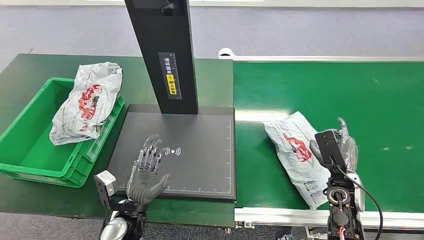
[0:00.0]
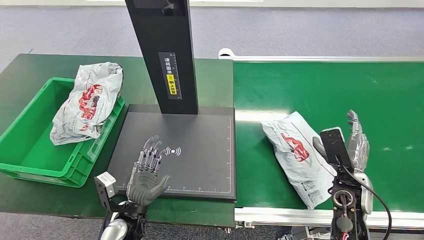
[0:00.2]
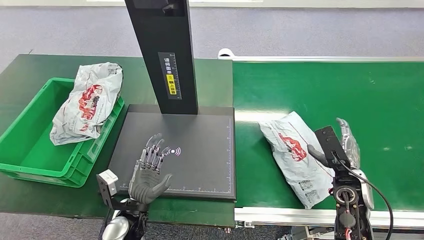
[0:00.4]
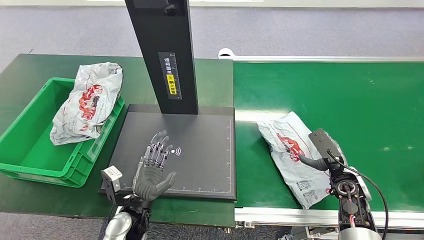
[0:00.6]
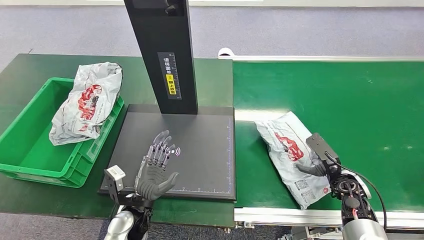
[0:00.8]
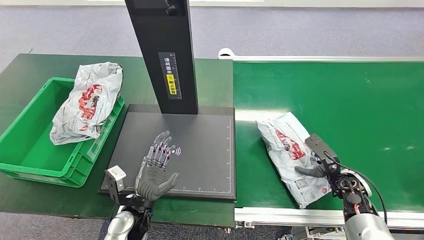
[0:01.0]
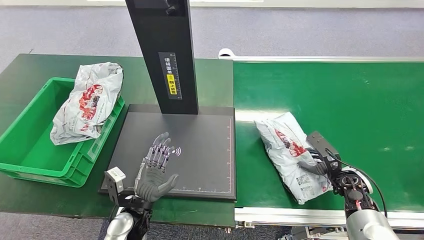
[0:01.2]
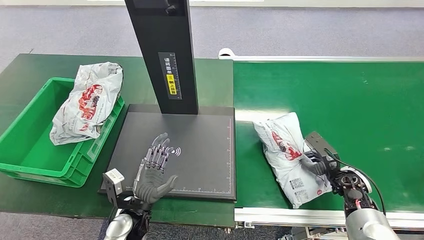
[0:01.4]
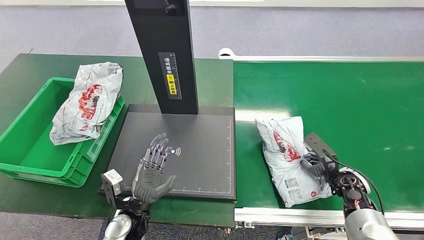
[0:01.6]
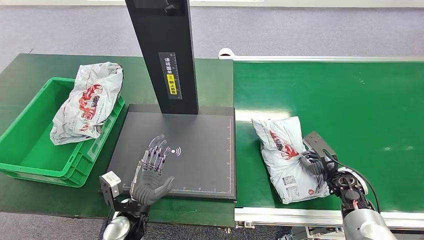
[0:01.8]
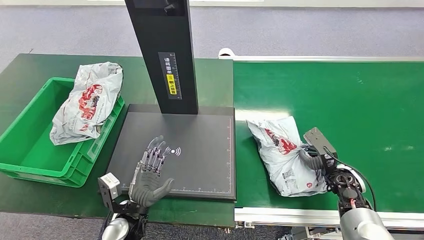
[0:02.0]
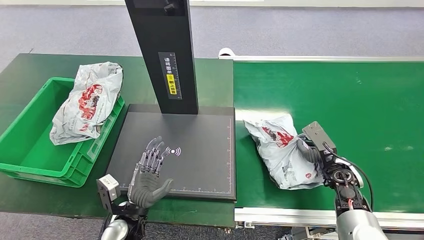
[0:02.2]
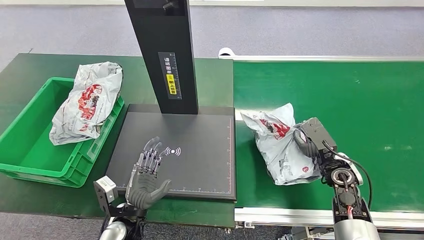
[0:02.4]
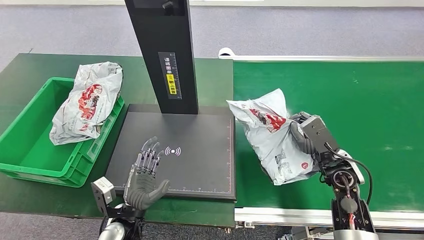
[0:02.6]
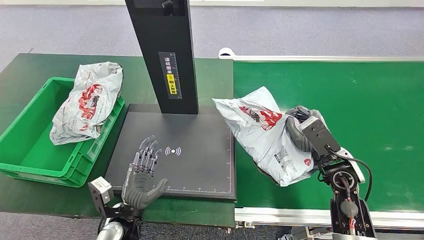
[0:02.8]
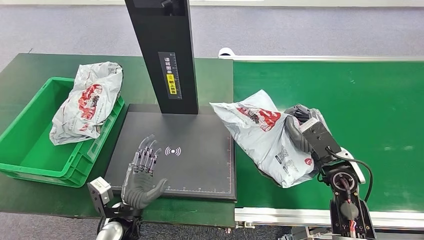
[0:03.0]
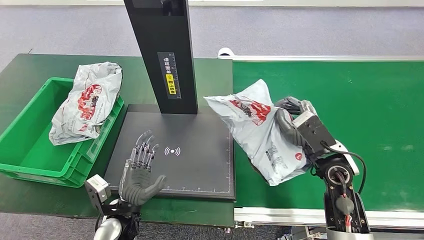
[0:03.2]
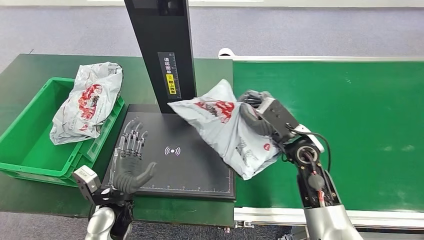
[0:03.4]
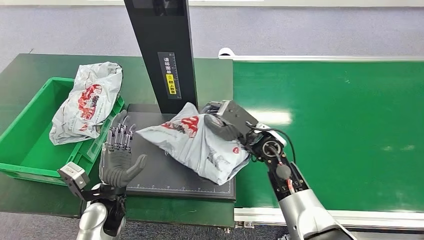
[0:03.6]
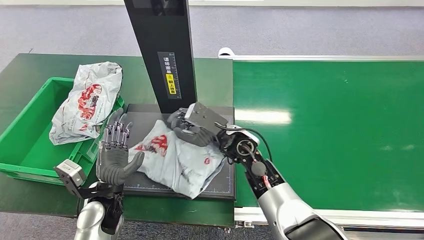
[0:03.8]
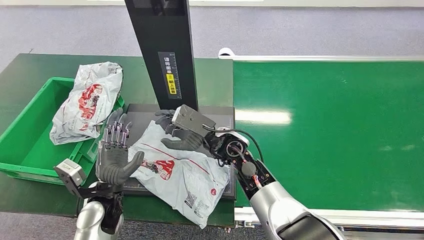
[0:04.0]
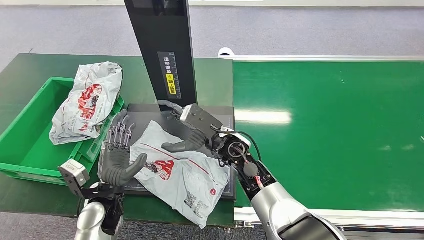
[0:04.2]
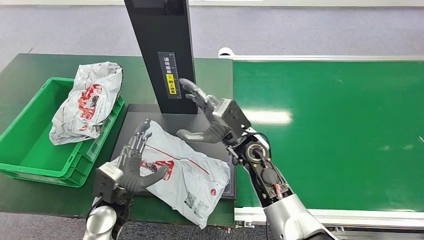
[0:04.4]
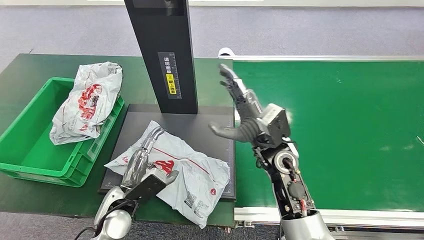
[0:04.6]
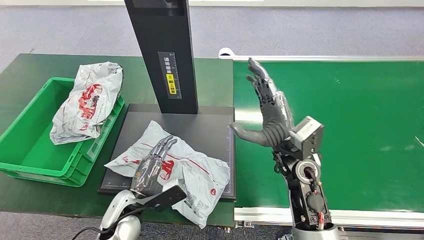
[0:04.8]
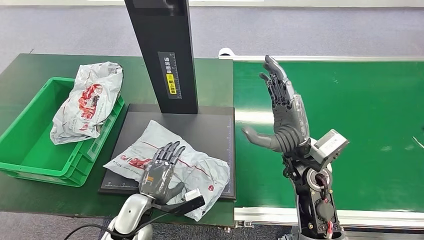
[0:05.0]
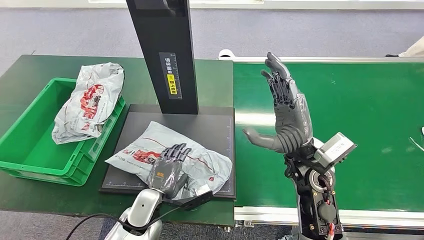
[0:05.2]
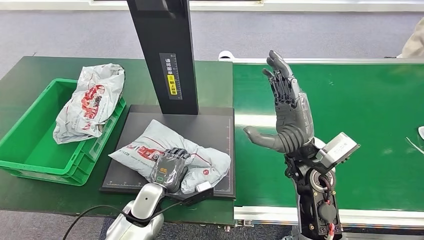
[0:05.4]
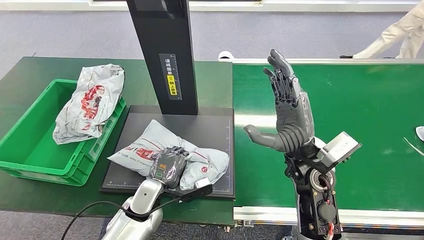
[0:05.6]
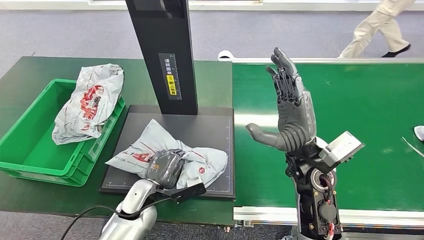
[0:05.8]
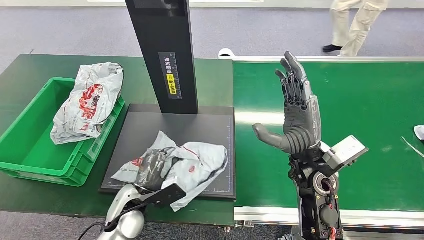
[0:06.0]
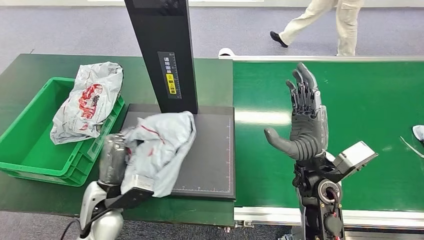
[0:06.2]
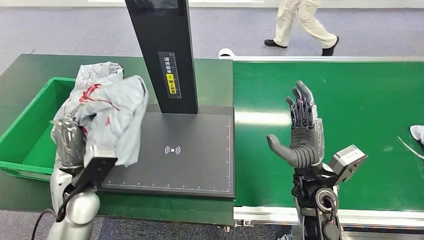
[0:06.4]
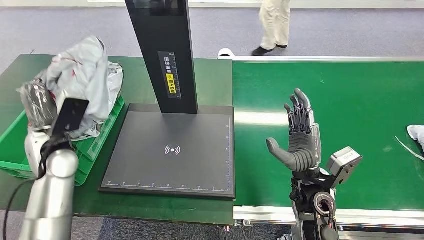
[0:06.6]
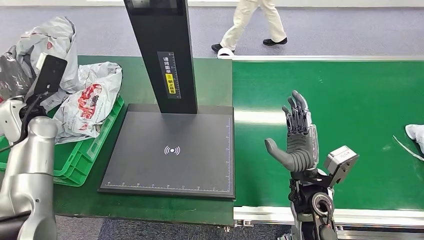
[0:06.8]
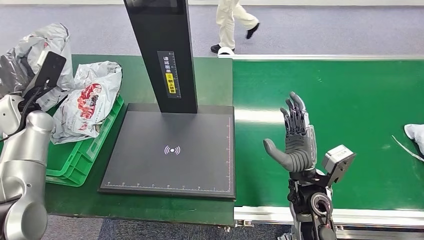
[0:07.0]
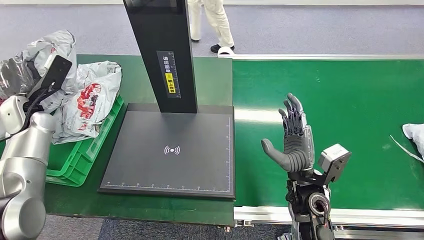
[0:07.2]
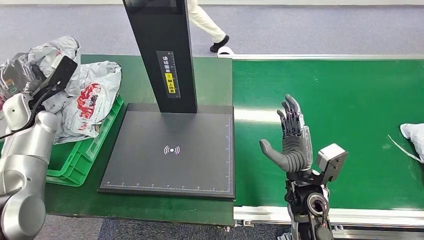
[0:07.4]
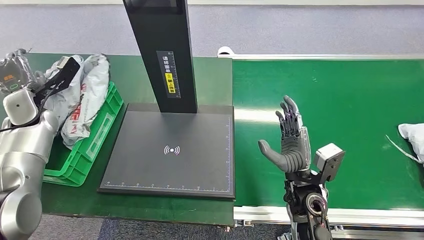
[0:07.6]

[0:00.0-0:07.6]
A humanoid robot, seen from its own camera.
Step, 0:00.0 to 0:02.6: Pick up the package from the conveyor belt.
Step, 0:02.8 to 0:04.0: Place the package onto the inbound machine.
Step, 0:04.2 to 0:06.2: Pick up the package from the inbound machine.
Step, 0:06.4 to 0:07.6: Place the package into the parcel locker.
0:01.6 to 0:03.0: The right hand is displaced upward and to the left by about 15 cm.
